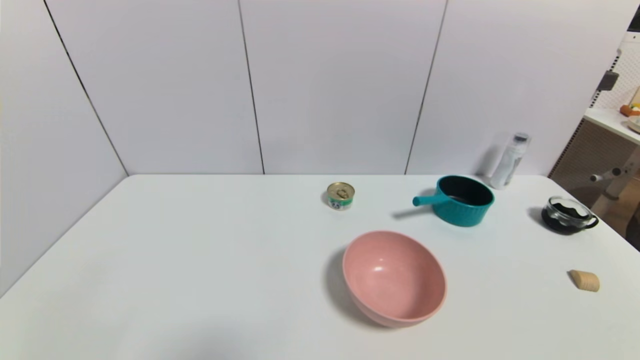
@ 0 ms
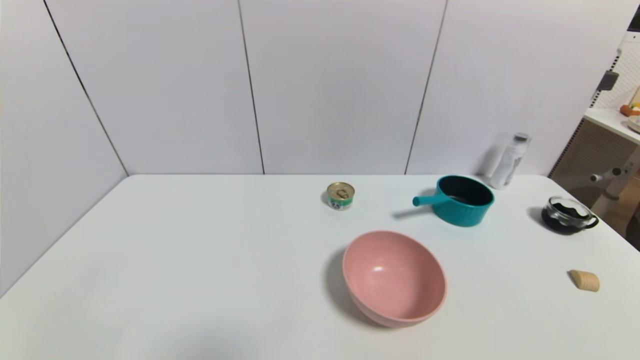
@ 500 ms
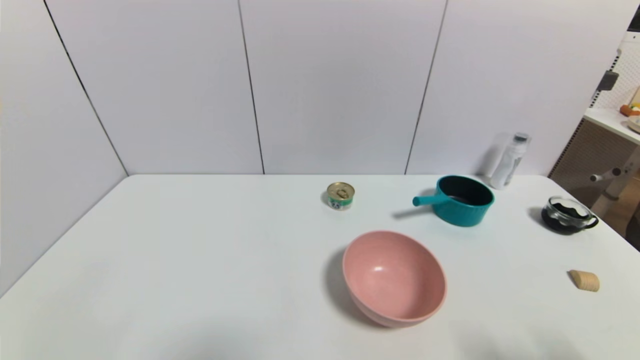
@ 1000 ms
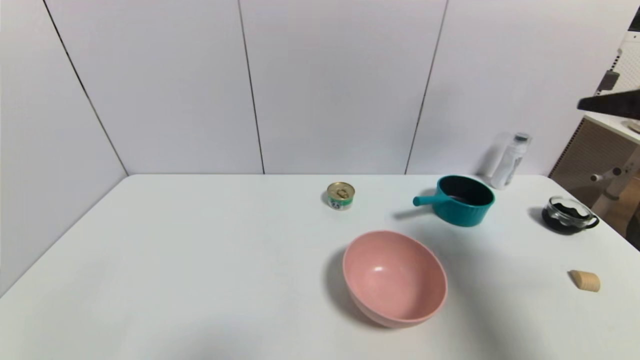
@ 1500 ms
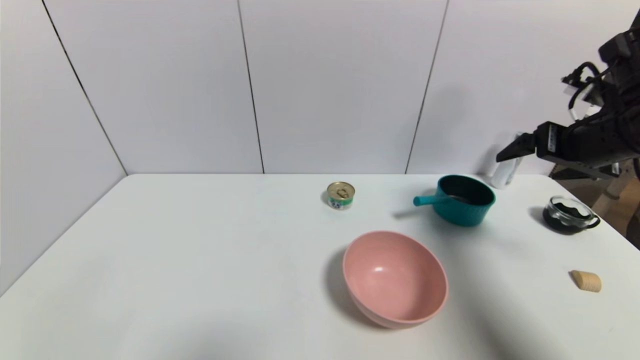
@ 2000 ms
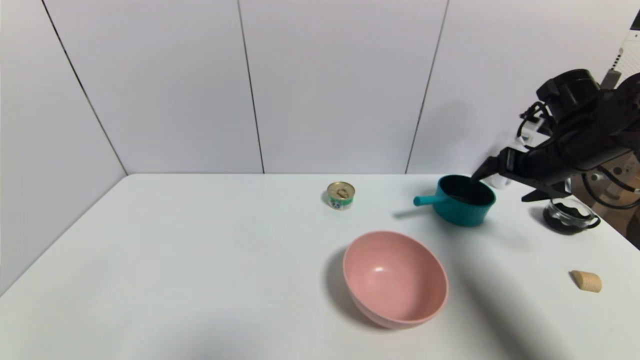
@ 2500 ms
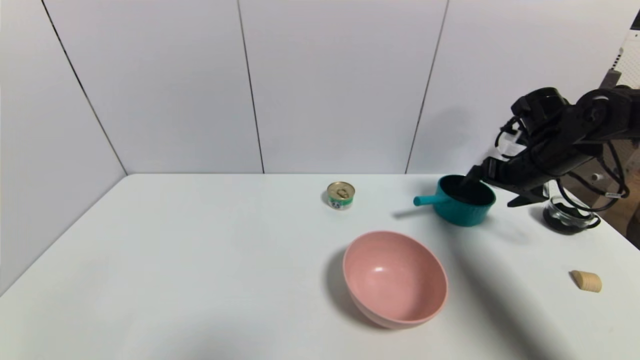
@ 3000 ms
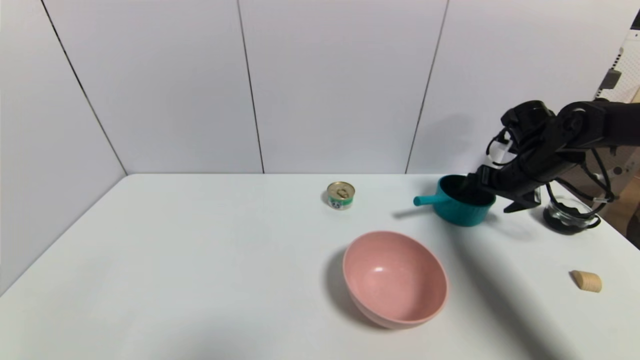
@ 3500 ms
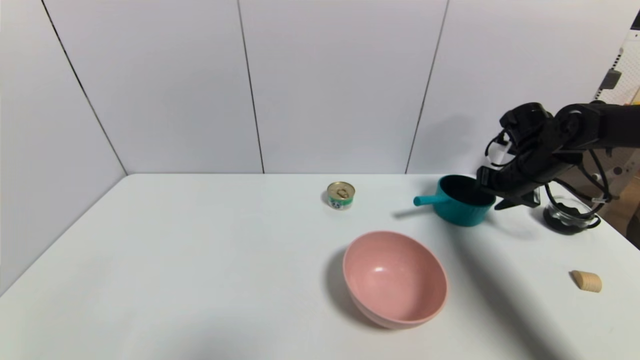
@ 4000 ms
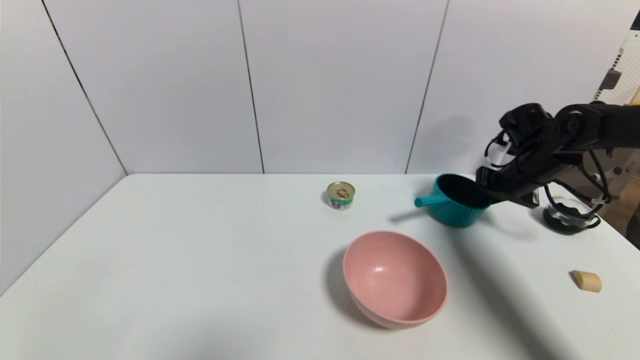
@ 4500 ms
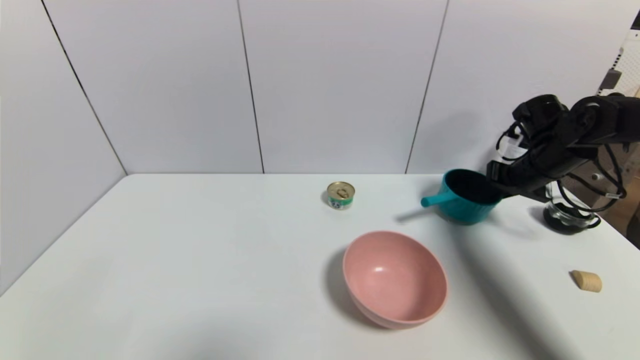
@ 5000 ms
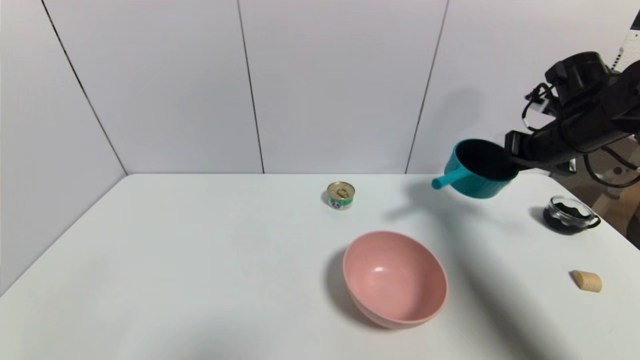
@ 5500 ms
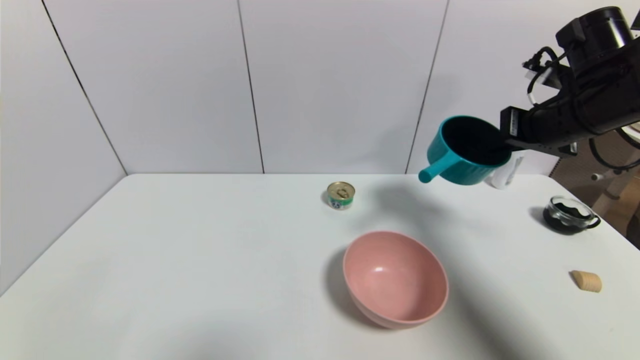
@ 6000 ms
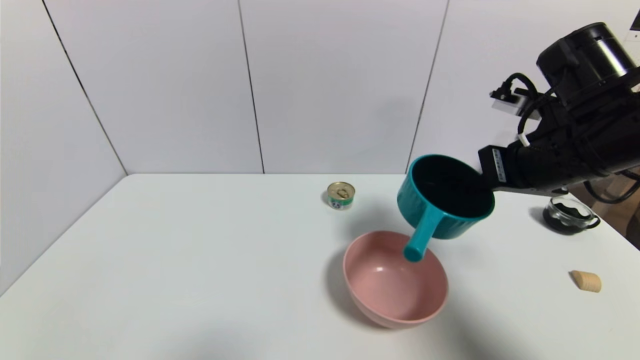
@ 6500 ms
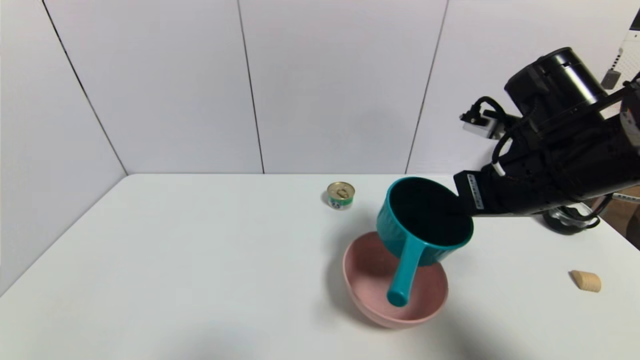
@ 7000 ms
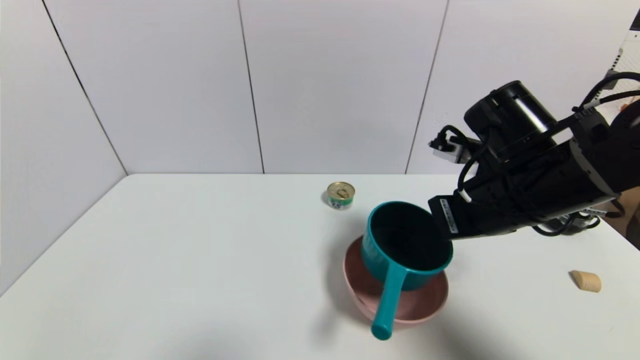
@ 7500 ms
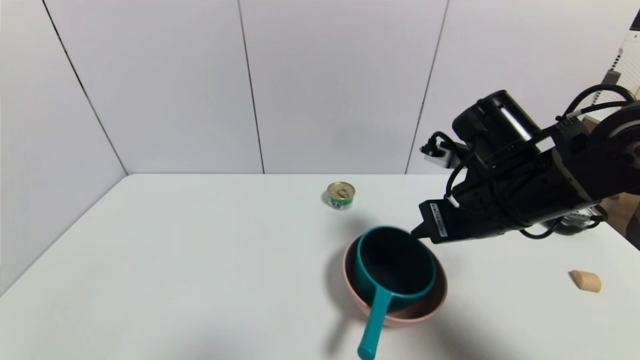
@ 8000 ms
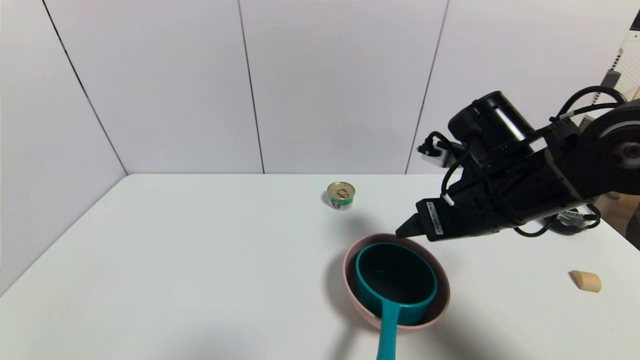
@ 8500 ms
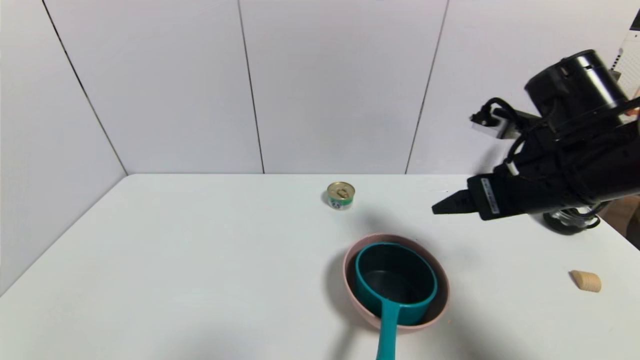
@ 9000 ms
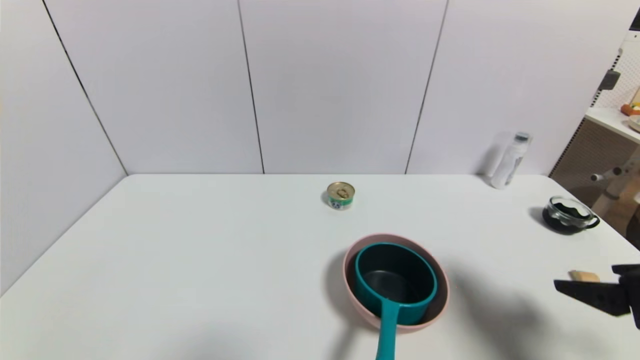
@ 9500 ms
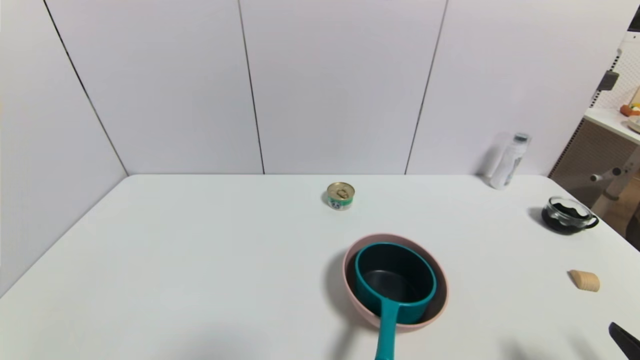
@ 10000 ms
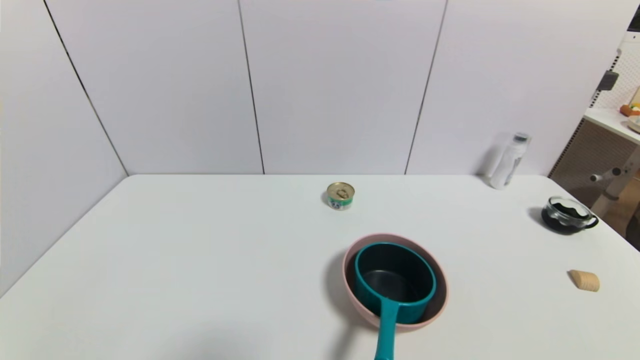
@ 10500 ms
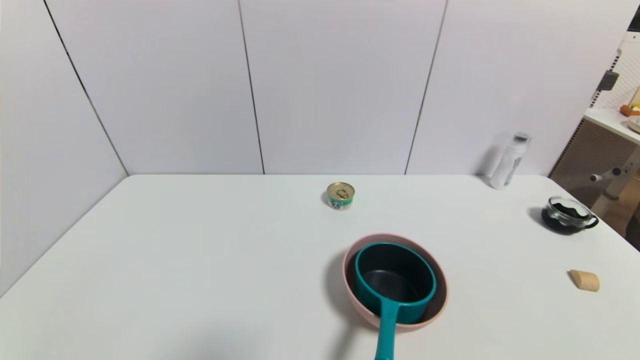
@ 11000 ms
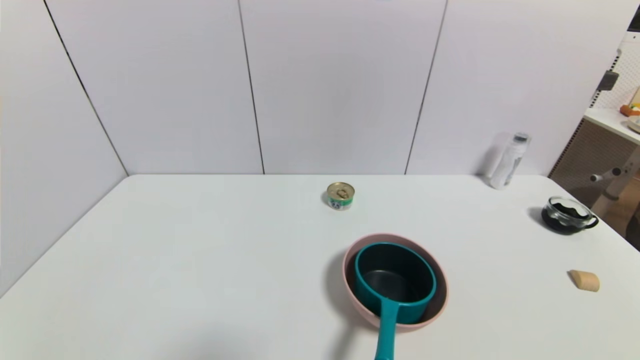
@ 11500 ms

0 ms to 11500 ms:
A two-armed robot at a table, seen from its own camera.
Task of the whole recording: use a gripper to pick the target object and place on the pink bowl.
Step, 0 ms to 4000 ms: Grasp the blue pot with the right gripper.
Step, 4500 ms to 8000 ms: Place the blue pot on the pink bowl with the right gripper.
0 ms to 2000 ms: The right gripper heads forward and upward, covering some 40 cm.
2000 ms to 4000 ms: The right gripper heads forward and downward, covering some 15 cm, and closes up.
4000 ms to 6000 ms: The right gripper heads upward and backward, covering roughly 15 cm, and closes its fingers.
6000 ms to 7500 ms: The right gripper moves to the left, backward and downward, roughly 15 cm.
7500 ms to 9500 ms: The right gripper shifts approximately 20 cm to the right and backward, and opens.
9500 ms to 11500 ms: The right gripper goes approximately 20 cm backward and downward.

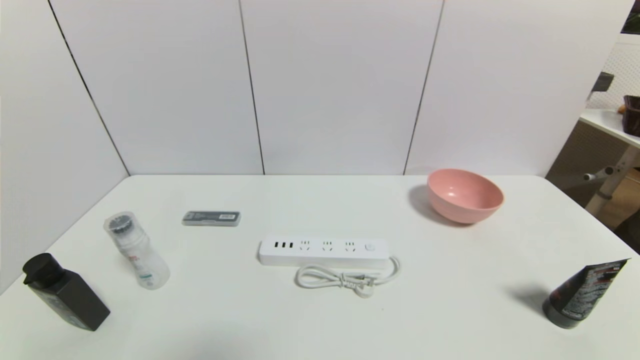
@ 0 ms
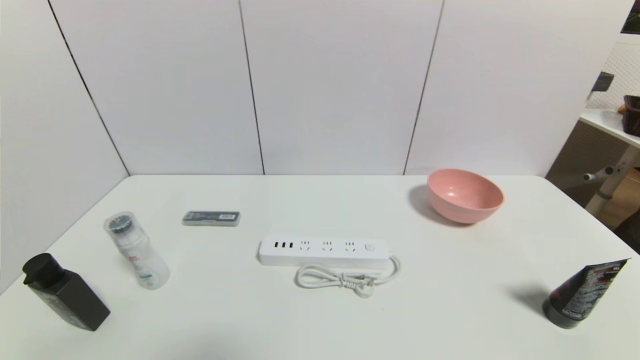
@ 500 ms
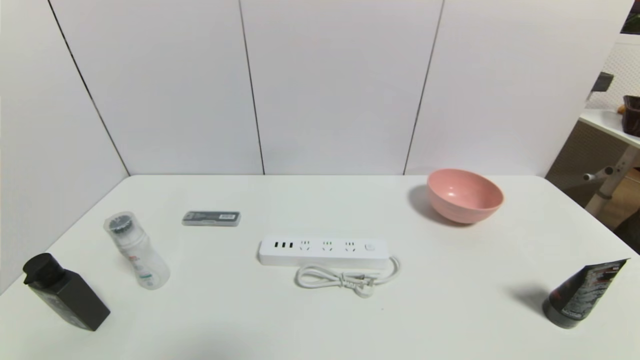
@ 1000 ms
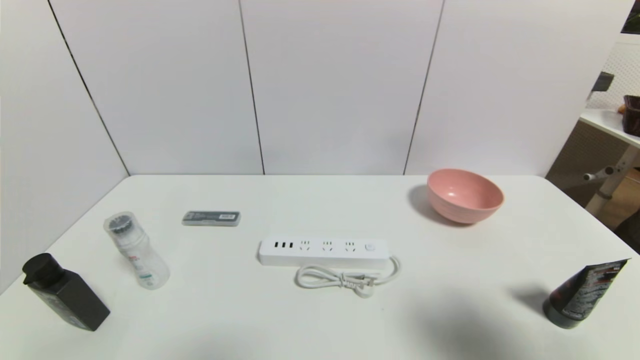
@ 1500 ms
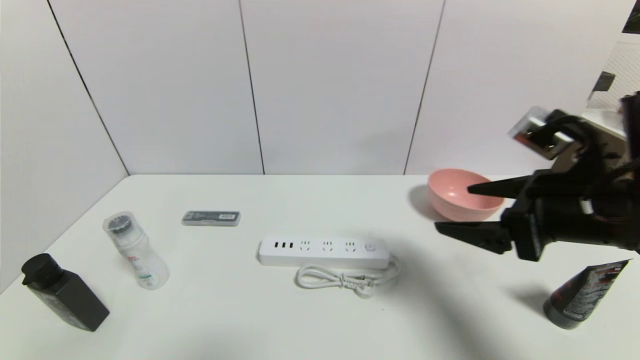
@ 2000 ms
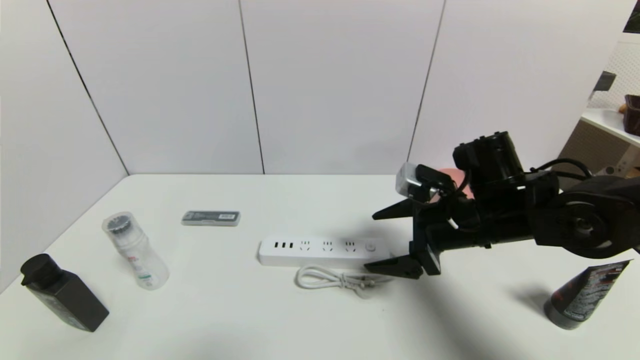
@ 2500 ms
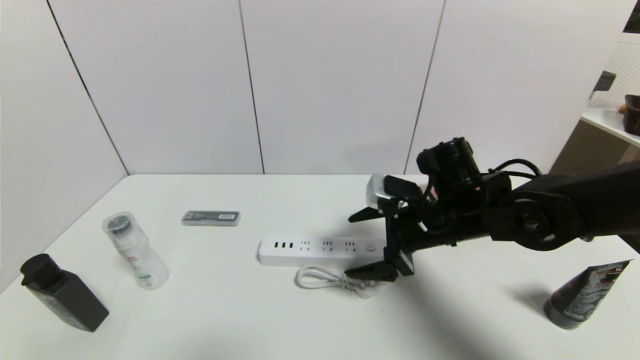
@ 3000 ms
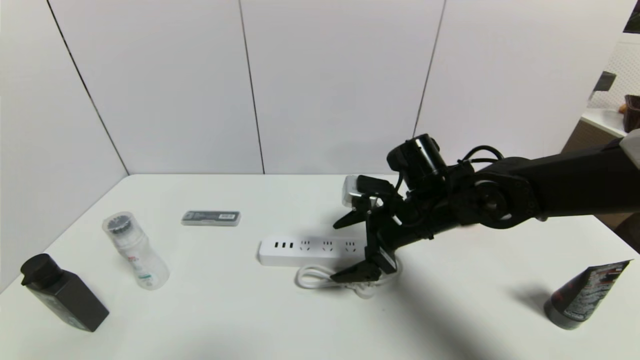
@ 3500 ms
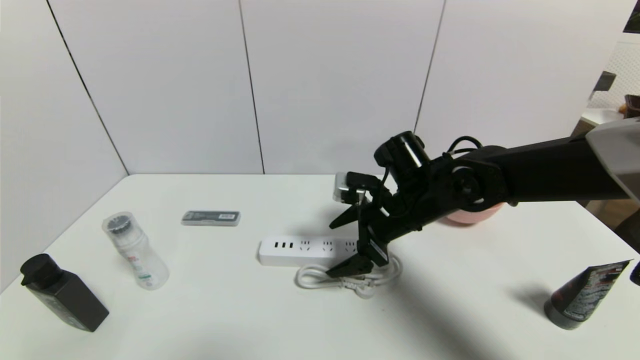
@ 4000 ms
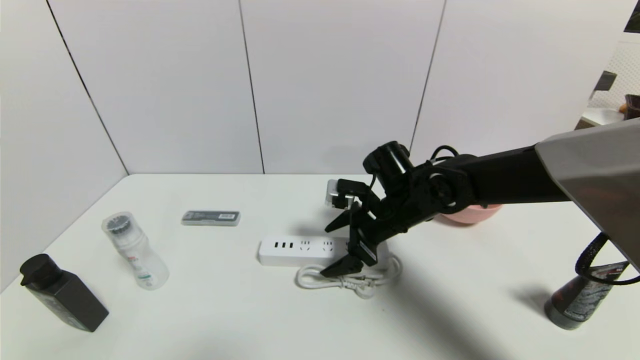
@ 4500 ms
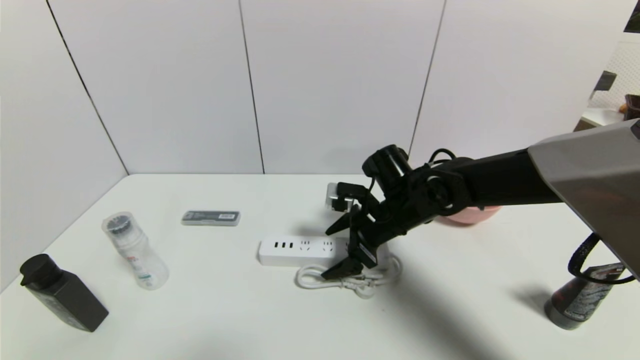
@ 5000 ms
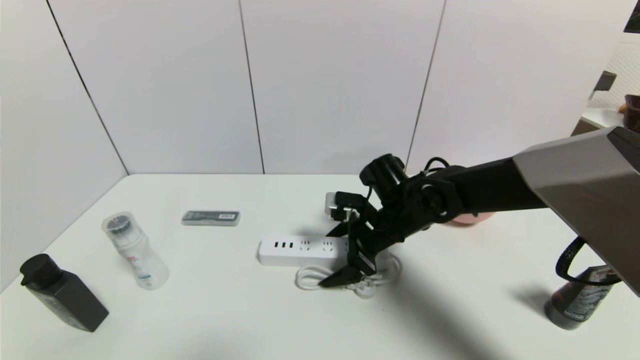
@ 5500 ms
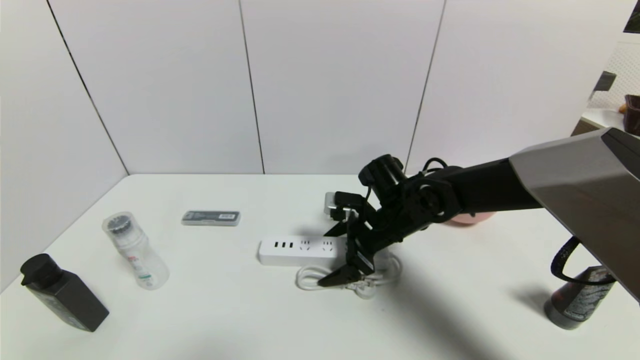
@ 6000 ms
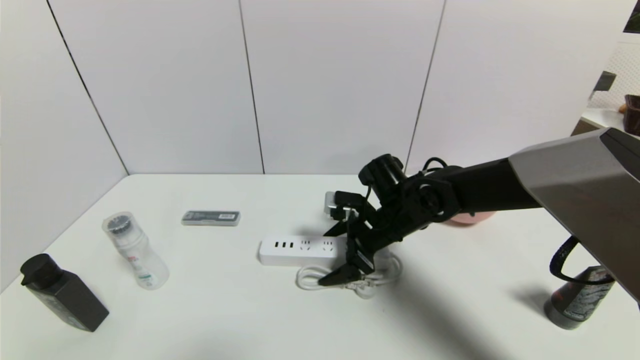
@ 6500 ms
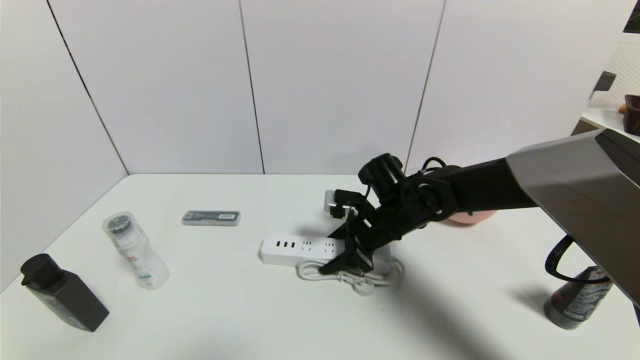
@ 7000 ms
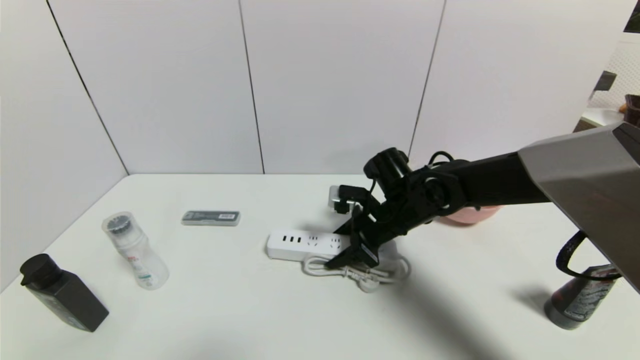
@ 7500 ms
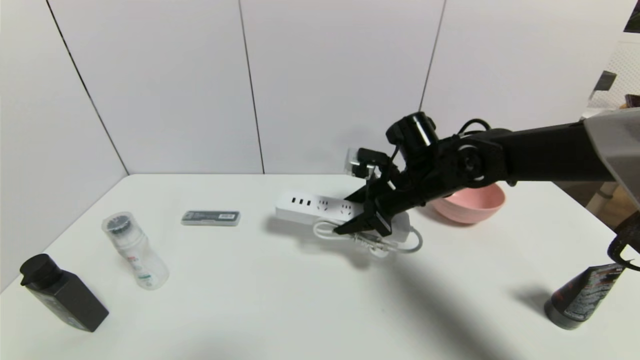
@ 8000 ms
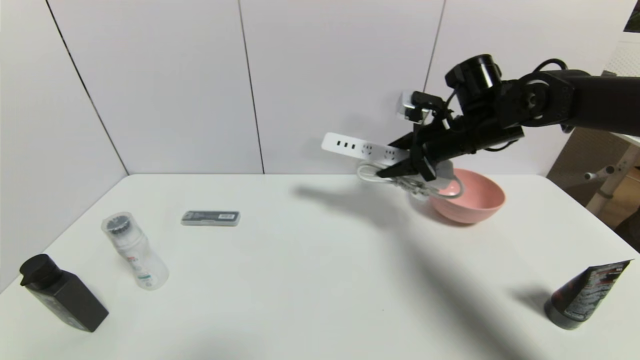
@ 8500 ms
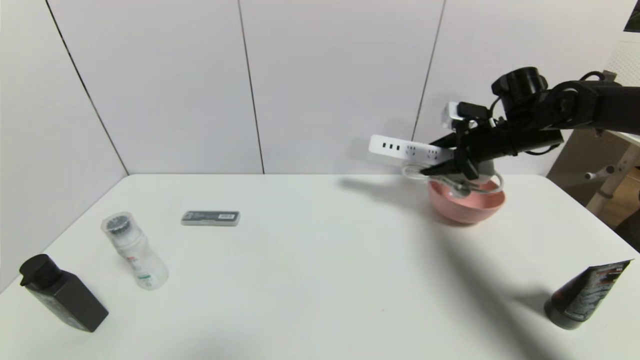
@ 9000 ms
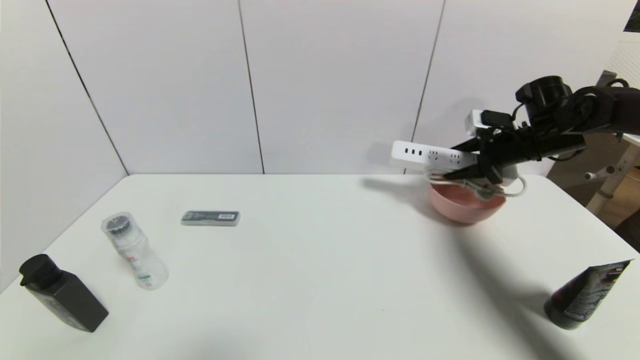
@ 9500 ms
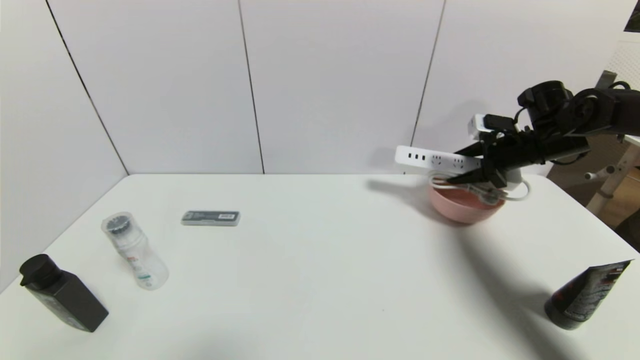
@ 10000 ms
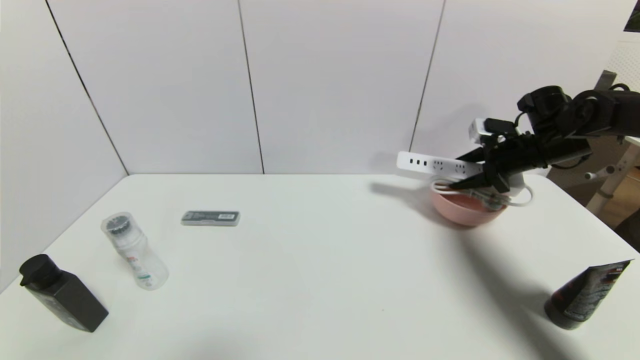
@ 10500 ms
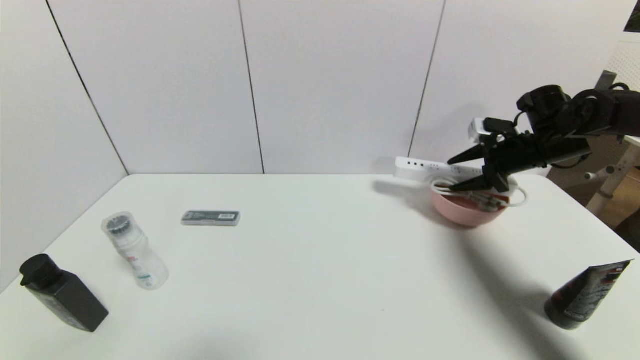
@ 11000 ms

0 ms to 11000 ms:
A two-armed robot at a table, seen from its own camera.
Task of the whole recording: use a gripper to pick the target object and place on the pink bowl.
Step, 0 ms to 7000 ms: Grasp the plugboard with the right gripper.
0 ms to 2000 ms: The right gripper shifts approximately 30 cm forward, upward and to the left.
2000 ms to 3500 ms: The right gripper shifts roughly 20 cm to the left, forward and downward.
3500 ms to 5500 ms: The right gripper ends up some 5 cm from where it was.
5500 ms to 7500 ms: The right gripper closes.
7500 ms to 9000 ms: The right gripper goes some 20 cm to the right and upward.
9000 ms to 11000 ms: The right gripper is displaced to the right by roughly 5 cm, and opens its fingers.
